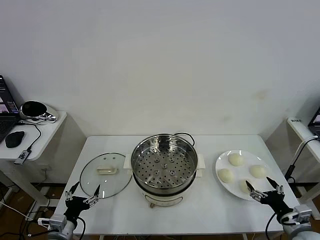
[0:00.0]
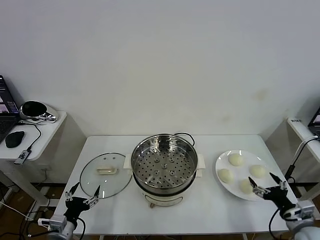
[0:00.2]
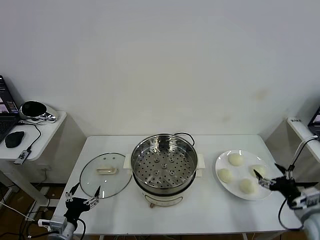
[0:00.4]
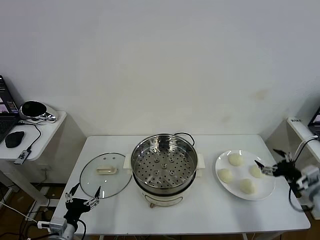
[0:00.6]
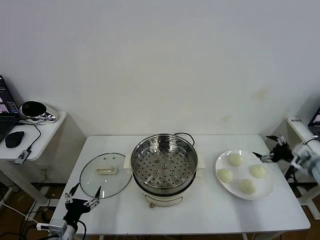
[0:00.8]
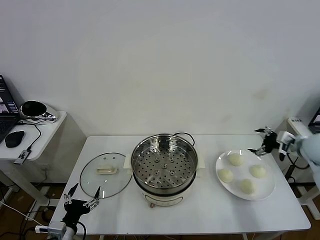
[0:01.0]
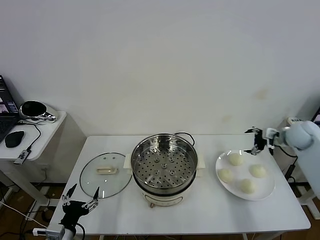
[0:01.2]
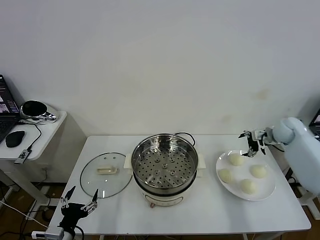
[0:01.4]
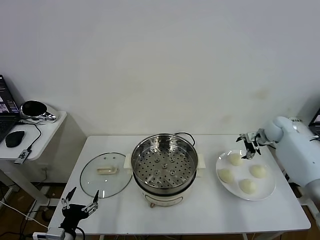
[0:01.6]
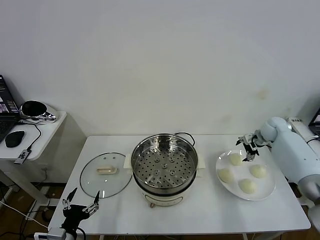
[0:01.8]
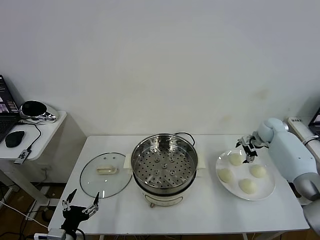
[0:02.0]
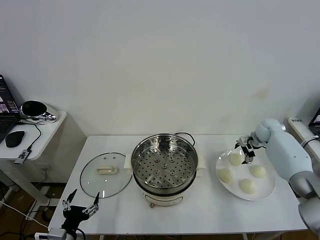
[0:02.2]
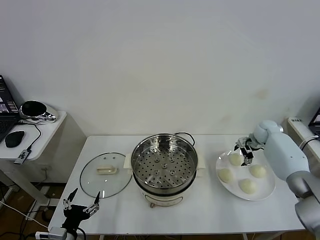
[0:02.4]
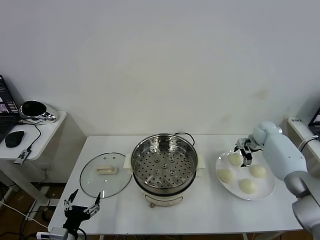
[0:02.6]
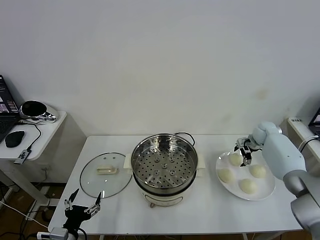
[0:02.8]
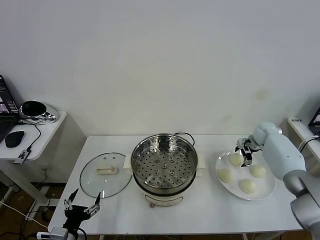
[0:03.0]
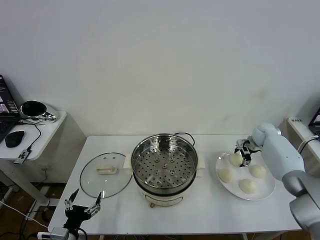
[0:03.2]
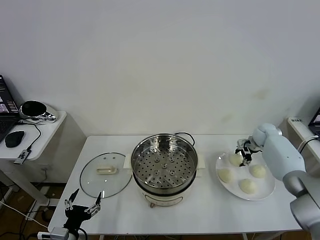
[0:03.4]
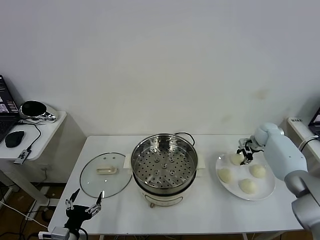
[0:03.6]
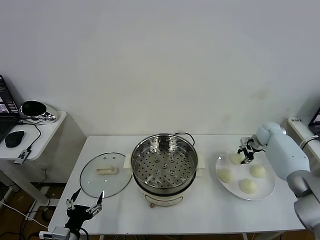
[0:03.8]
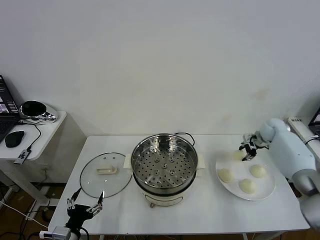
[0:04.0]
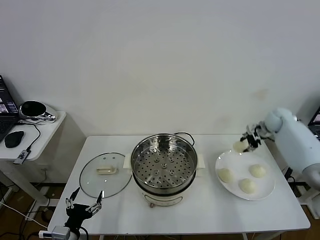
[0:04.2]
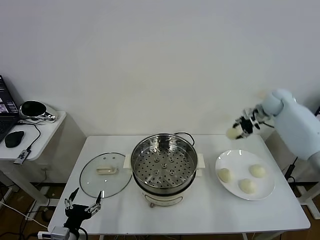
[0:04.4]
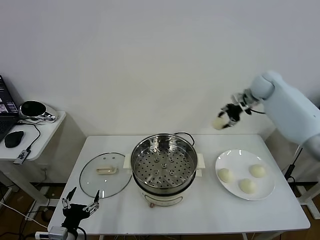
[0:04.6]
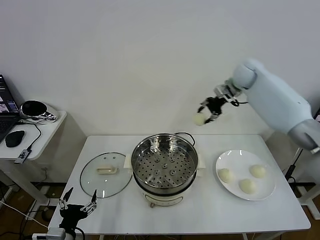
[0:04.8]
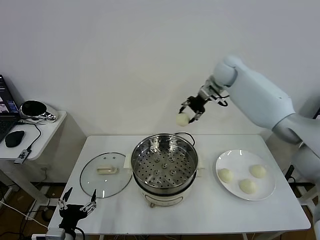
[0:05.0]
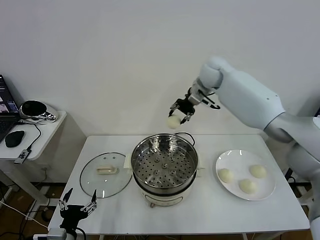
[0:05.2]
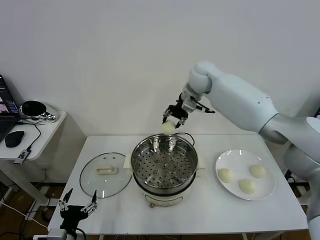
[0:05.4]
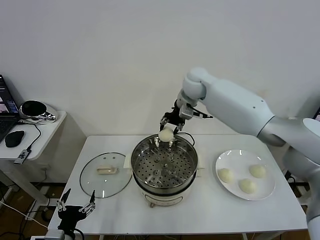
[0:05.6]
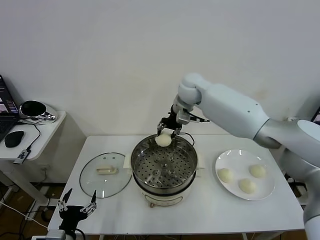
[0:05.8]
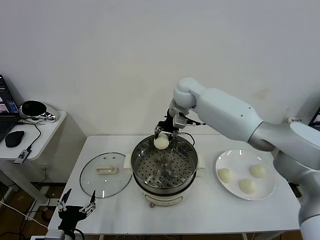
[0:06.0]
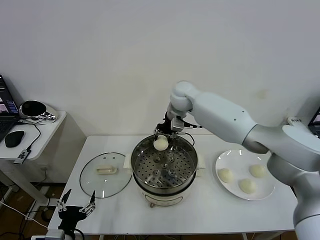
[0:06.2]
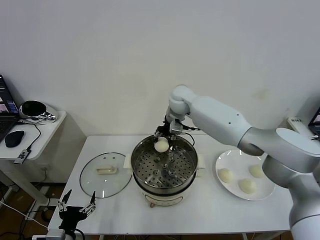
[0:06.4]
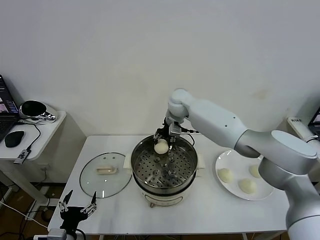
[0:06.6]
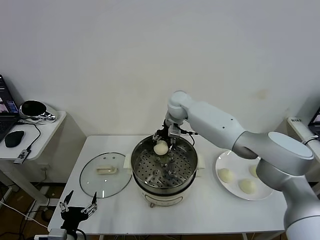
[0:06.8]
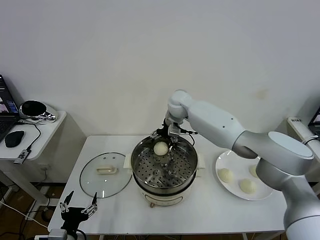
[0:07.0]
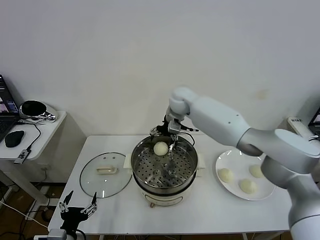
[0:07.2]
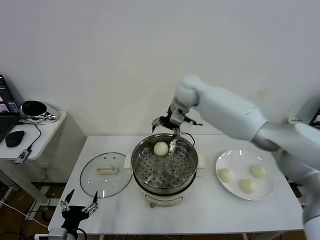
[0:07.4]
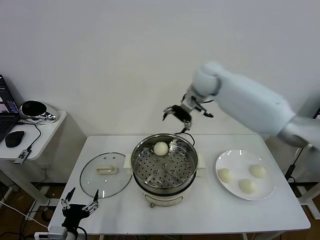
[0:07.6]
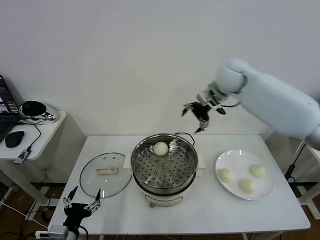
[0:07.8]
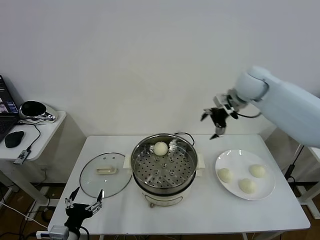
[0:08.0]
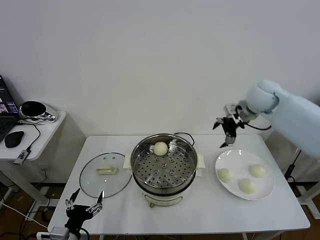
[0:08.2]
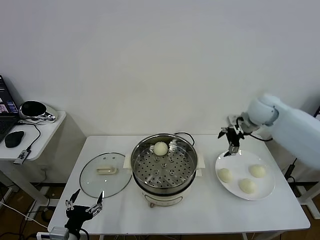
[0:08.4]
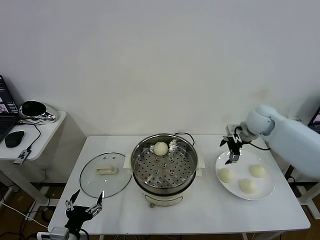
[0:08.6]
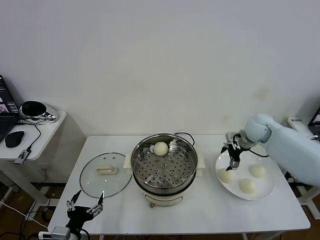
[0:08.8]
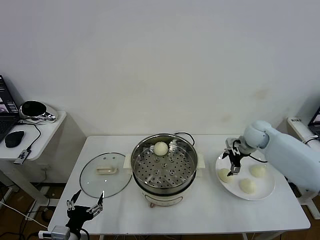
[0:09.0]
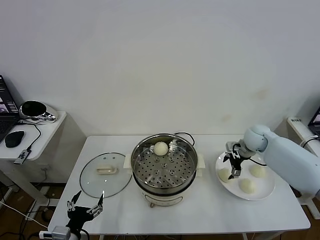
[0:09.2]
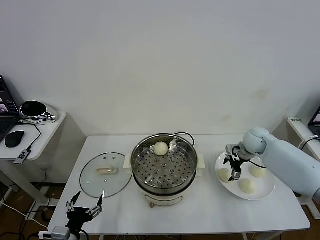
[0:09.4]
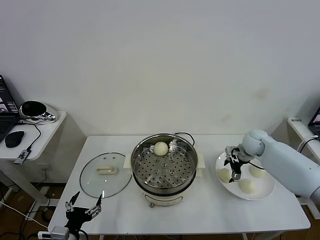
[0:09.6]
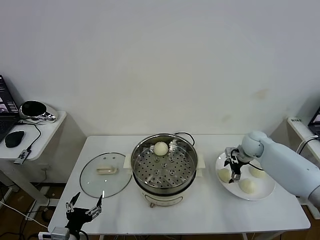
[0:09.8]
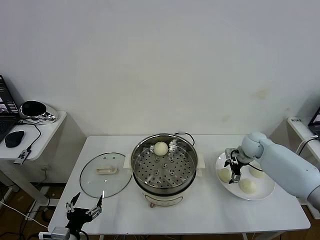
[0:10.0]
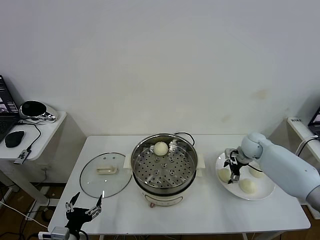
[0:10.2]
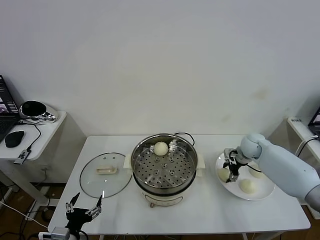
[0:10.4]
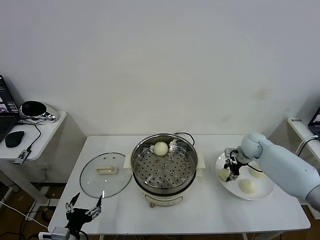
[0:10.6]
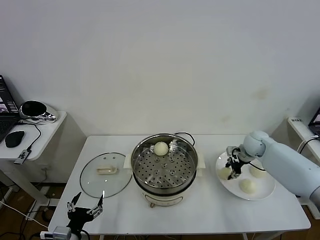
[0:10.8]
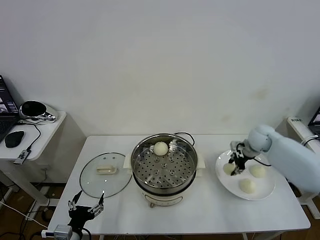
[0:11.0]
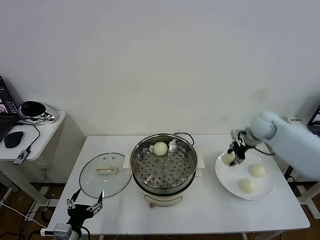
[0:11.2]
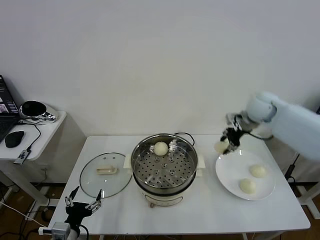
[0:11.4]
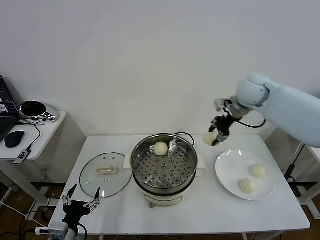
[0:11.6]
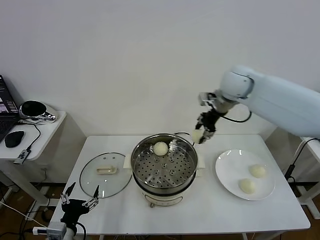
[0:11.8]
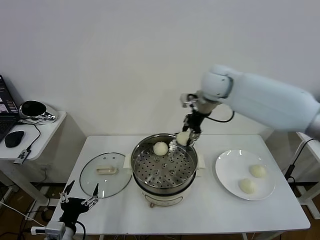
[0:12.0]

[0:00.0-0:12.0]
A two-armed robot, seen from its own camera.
Task of the whole recording: take steamed baozi put them in steamer then cover it.
Step, 0:00.0 to 0:03.4: Grasp the baozi in the plate with right gripper.
Step, 0:03.6 to 0:07.0: Place the baozi on the steamer with right gripper.
Step, 0:07.2 to 0:10.6: Grasp the baozi in the plate with right gripper.
0:01.6 to 0:03.0: The right gripper changes place by roughly 5 cm.
0:03.0 to 0:04.4: The right gripper shifts about 20 cm upward, and closes up.
0:04.4 to 0:06.0: The right gripper is displaced to the left by roughly 30 cm.
0:06.0 to 0:07.6: The right gripper shifts approximately 15 cm to the right and upward, and opens up.
0:07.6 to 0:09.0: The right gripper travels downward and to the right by about 25 cm.
0:09.0 to 0:10.4: The right gripper is displaced downward by approximately 5 cm, and closes up.
0:10.4 to 0:12.0: The right gripper moves upward and to the left, some 35 cm.

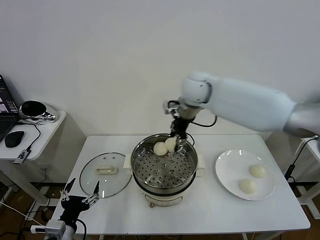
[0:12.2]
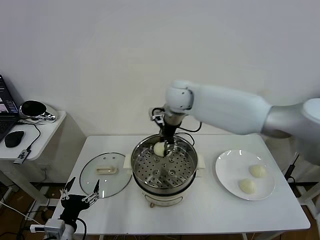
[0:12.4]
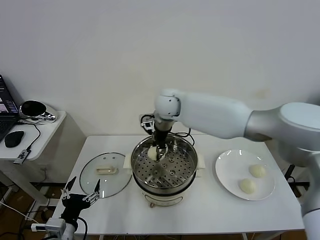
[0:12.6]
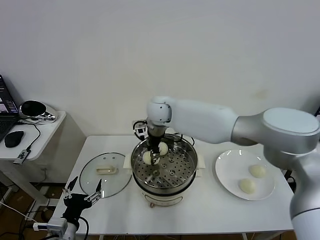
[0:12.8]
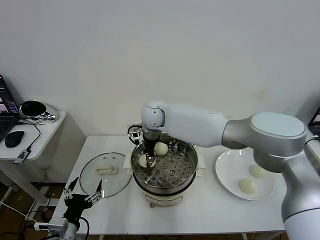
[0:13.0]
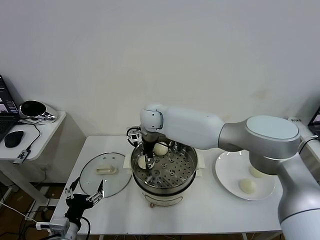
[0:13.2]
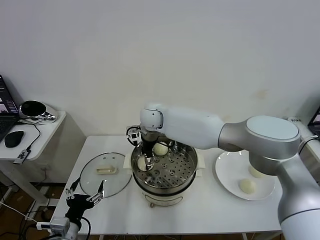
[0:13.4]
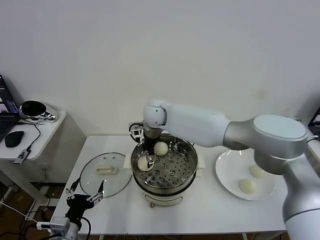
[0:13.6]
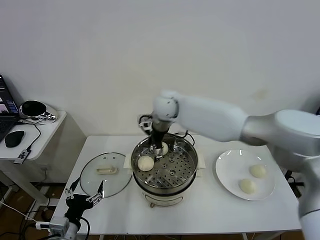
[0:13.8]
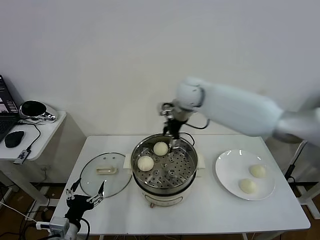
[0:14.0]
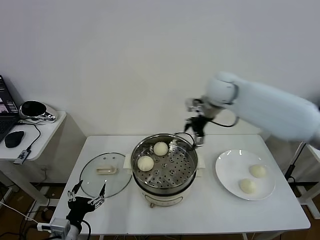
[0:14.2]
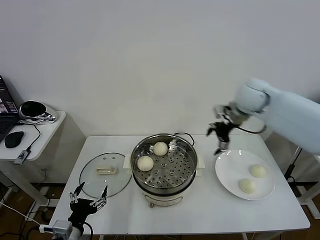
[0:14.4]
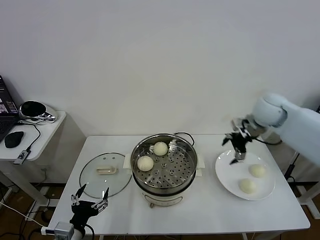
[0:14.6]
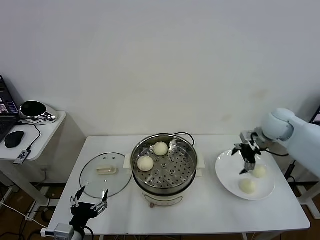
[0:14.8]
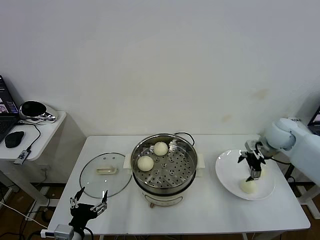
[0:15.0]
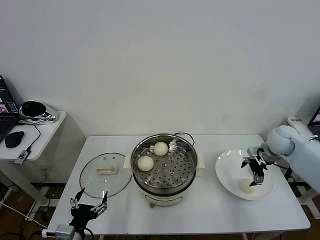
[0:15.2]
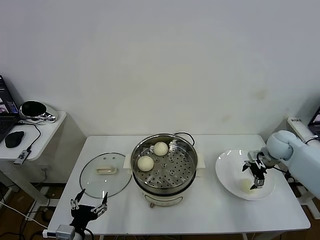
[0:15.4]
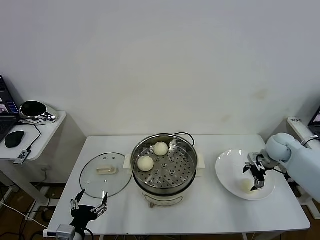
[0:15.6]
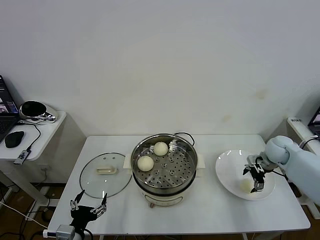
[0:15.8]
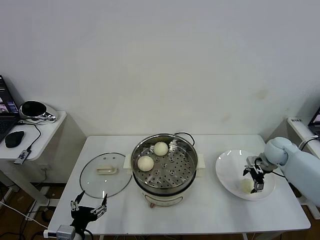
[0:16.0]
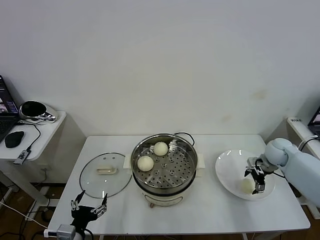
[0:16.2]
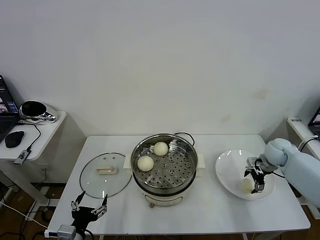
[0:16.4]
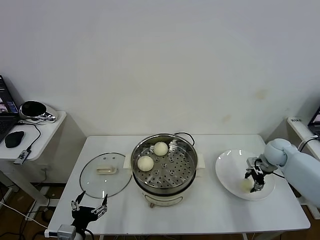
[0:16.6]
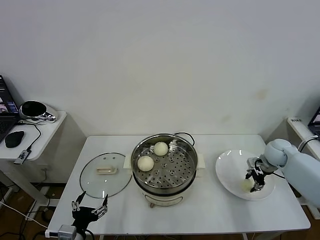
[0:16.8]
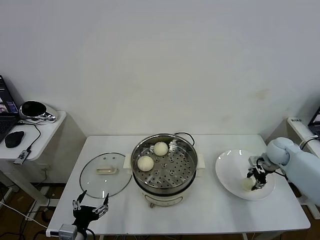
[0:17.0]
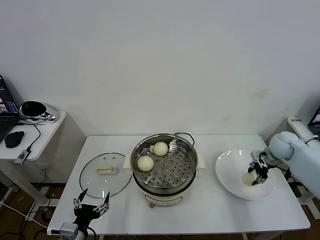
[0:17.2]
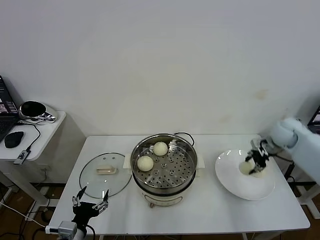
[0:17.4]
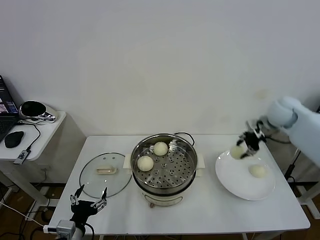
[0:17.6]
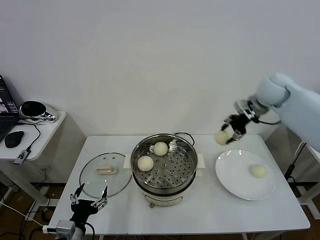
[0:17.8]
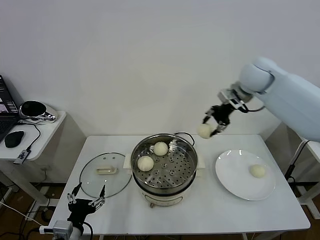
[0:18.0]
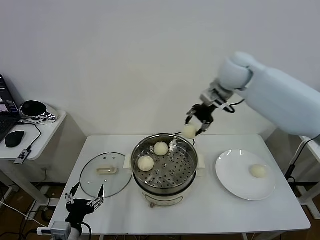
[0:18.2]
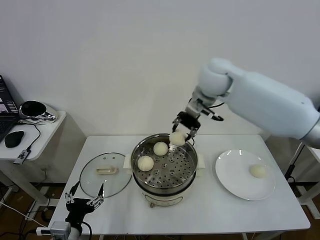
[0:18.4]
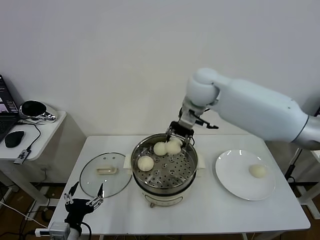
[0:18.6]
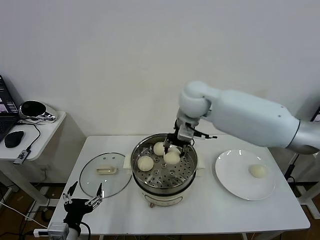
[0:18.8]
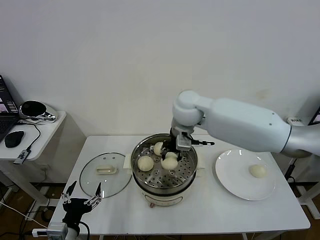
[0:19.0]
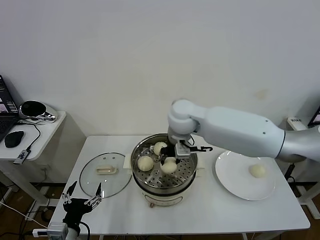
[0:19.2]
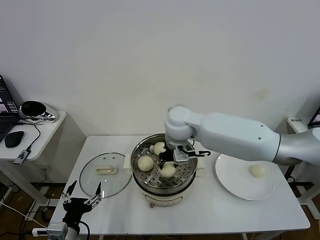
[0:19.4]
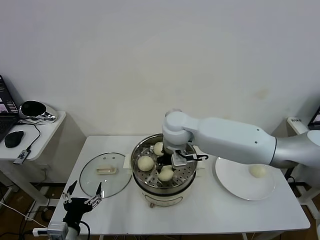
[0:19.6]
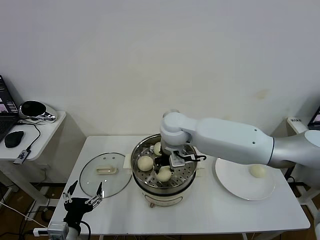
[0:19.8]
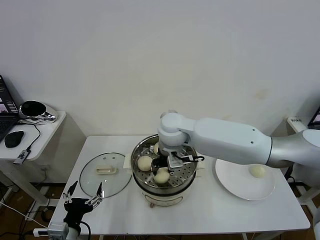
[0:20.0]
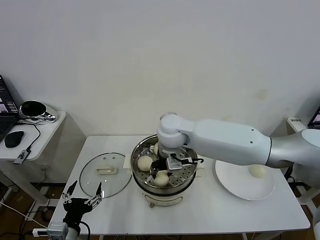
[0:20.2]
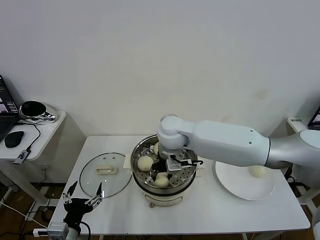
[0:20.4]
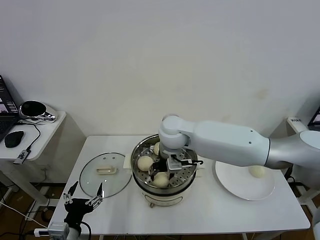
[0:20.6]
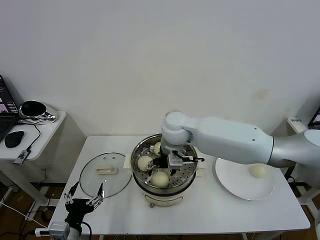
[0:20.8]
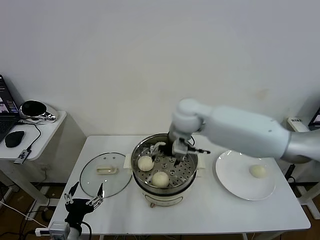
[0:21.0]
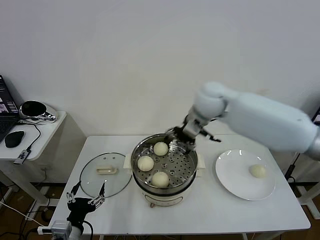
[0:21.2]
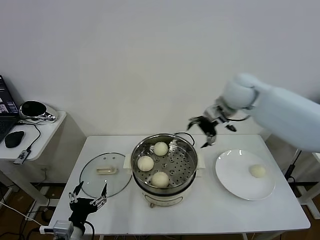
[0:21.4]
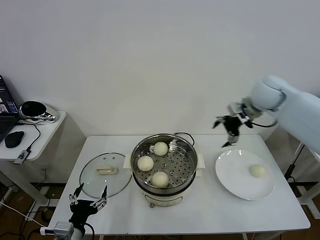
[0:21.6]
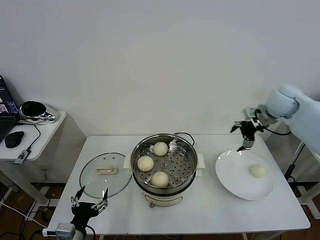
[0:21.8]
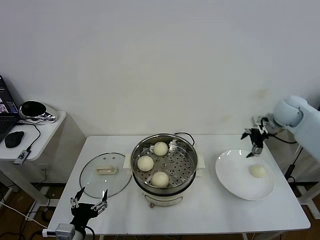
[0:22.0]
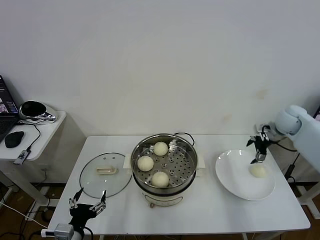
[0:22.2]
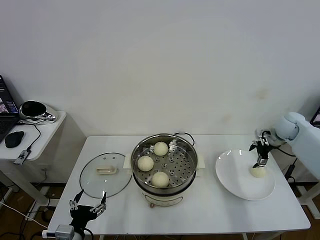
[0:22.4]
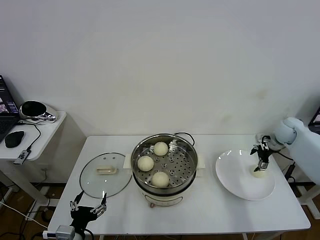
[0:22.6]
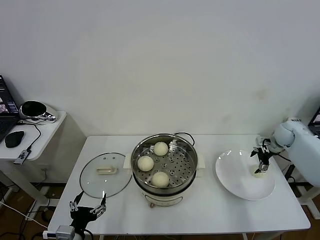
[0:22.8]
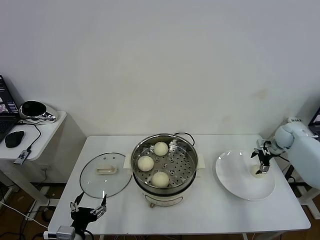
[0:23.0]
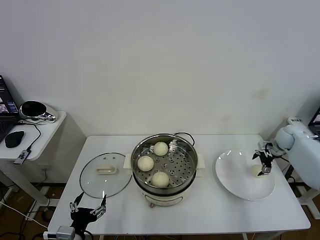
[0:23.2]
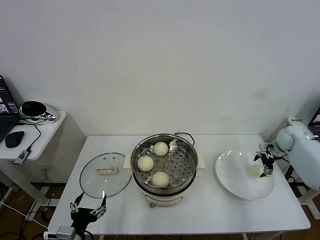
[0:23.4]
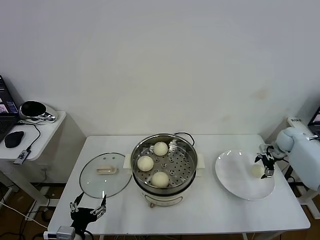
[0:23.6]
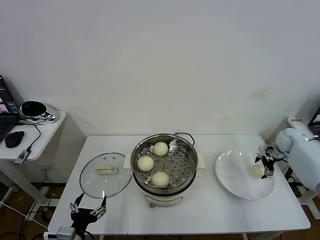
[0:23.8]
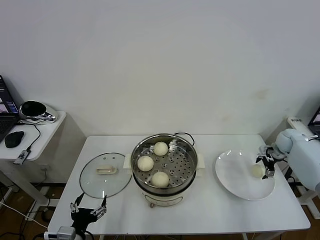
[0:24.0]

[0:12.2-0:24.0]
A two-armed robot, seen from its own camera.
Task of the whole recording: take steamed baozi put them in steamer then cover it.
Step, 0:12.2 to 0:13.6: Place the baozi on the steamer with right gripper.
Step, 0:13.8 to 0:16.8: Grasp the baozi in the plate with right gripper.
Step, 0:17.0 to 0:20.8: Place the baozi on the steamer with right gripper.
0:12.2 to 0:13.6: The right gripper heads to the left and downward, covering some 10 cm, and opens up.
0:13.6 to 0:15.2: The right gripper moves to the right, roughly 40 cm.
0:15.2 to 0:16.6: The right gripper moves downward, about 5 cm, and closes.
0:16.6 to 0:18.2: The right gripper moves upward and to the left, about 40 cm.
0:18.2 to 0:19.6: The right gripper travels to the left, downward and backward by about 20 cm.
0:19.6 to 0:21.0: The right gripper ends up about 5 cm from where it was, and opens its fingers.
0:21.0 to 0:22.6: The right gripper travels to the right by some 40 cm.
0:22.6 to 0:24.0: The right gripper moves downward, some 5 cm.
